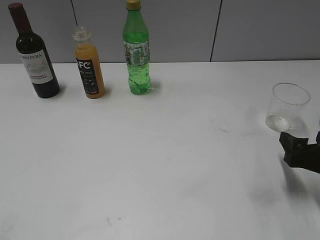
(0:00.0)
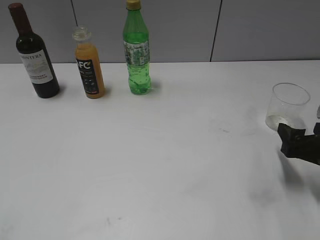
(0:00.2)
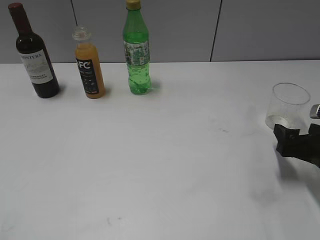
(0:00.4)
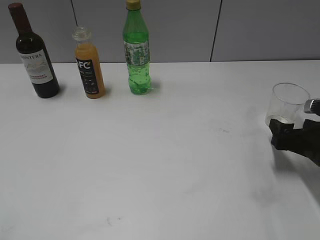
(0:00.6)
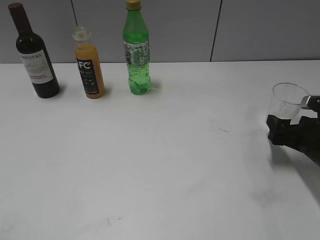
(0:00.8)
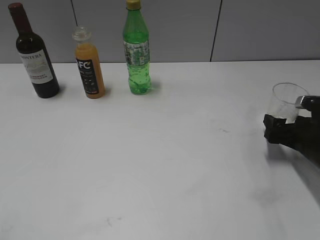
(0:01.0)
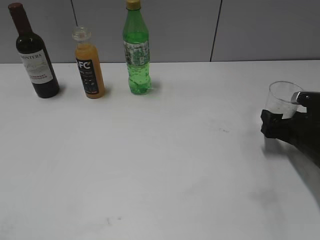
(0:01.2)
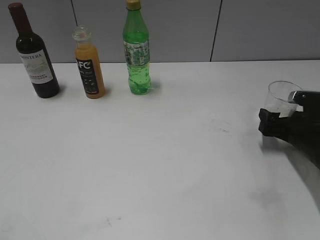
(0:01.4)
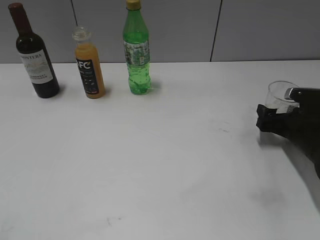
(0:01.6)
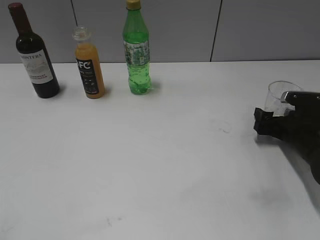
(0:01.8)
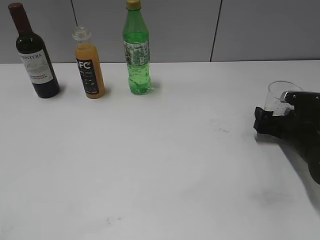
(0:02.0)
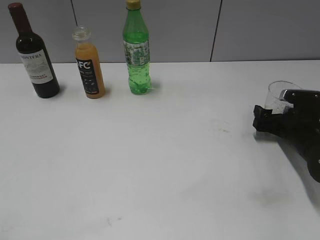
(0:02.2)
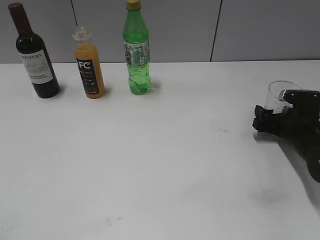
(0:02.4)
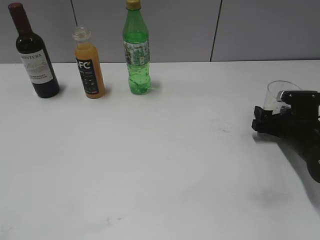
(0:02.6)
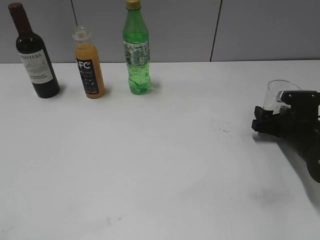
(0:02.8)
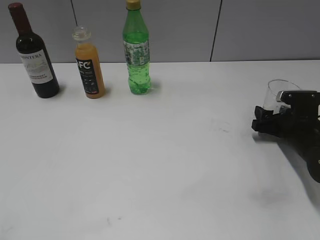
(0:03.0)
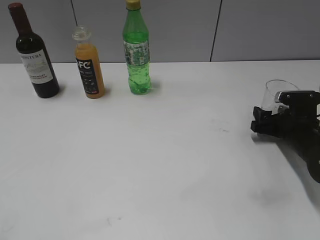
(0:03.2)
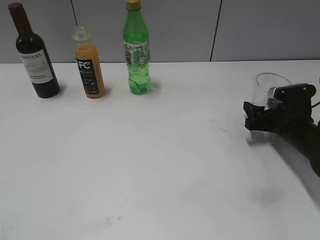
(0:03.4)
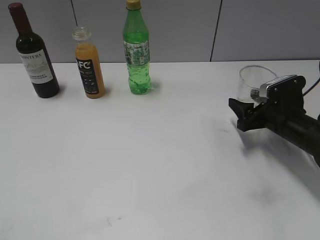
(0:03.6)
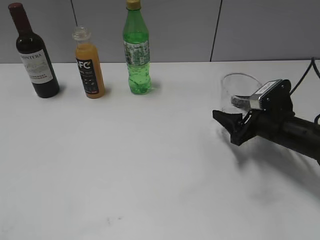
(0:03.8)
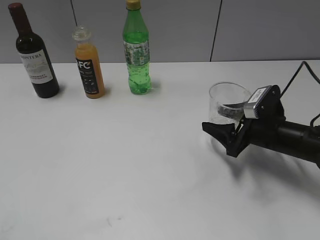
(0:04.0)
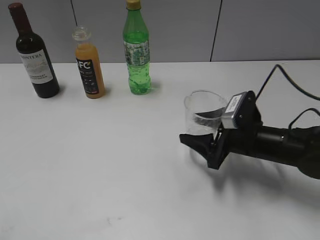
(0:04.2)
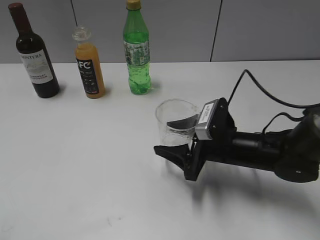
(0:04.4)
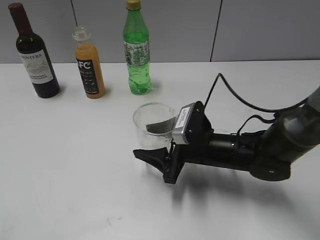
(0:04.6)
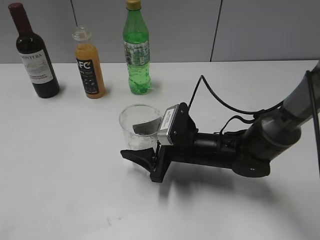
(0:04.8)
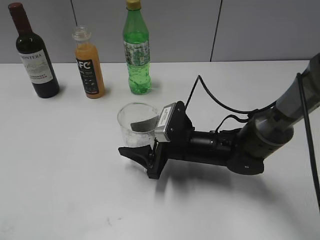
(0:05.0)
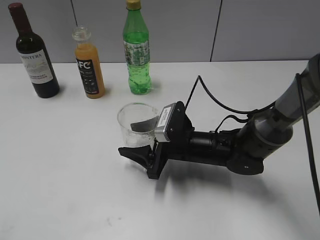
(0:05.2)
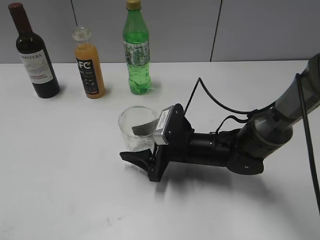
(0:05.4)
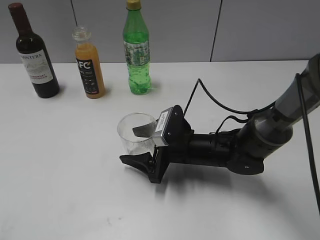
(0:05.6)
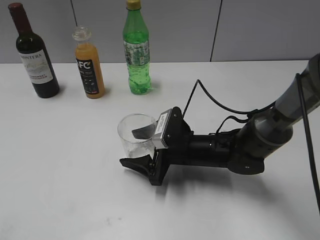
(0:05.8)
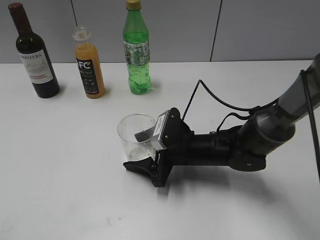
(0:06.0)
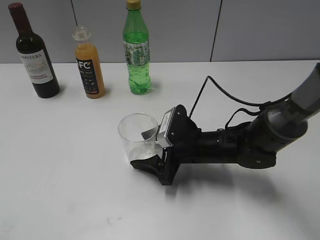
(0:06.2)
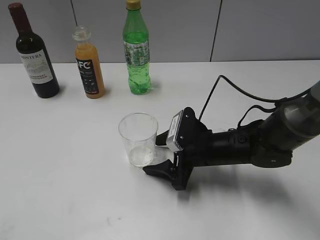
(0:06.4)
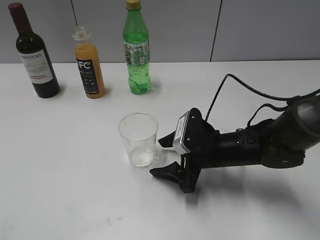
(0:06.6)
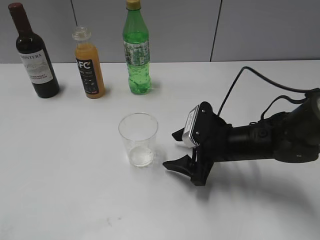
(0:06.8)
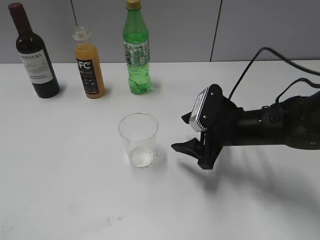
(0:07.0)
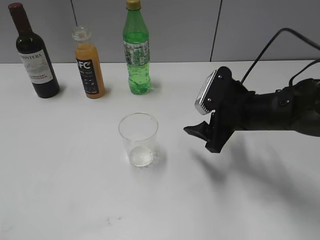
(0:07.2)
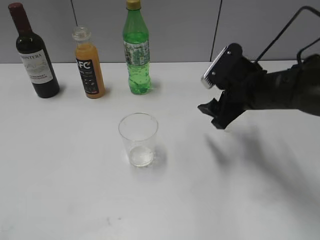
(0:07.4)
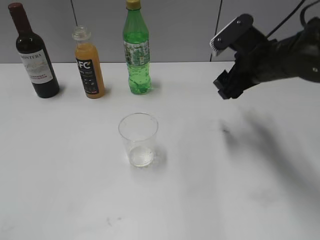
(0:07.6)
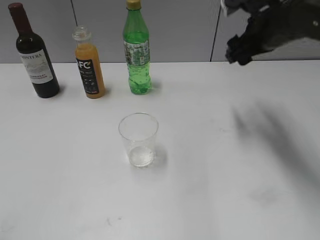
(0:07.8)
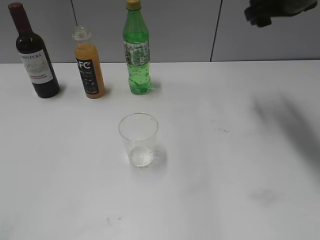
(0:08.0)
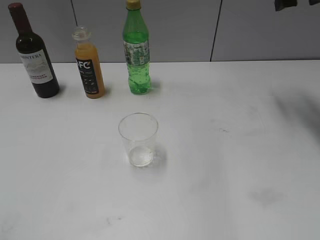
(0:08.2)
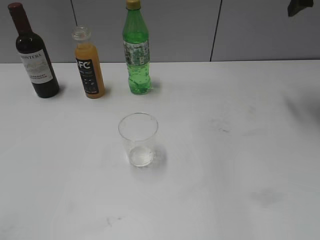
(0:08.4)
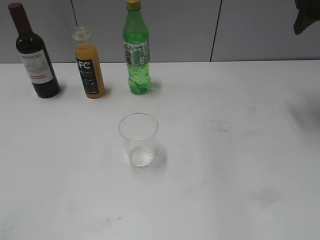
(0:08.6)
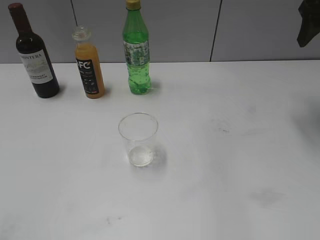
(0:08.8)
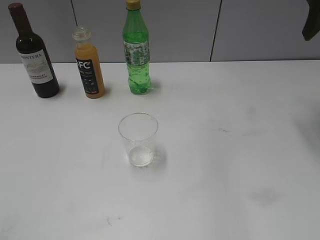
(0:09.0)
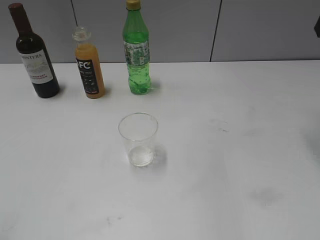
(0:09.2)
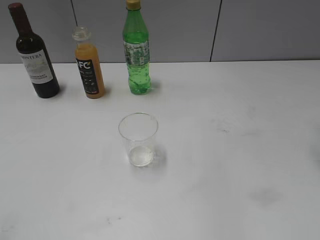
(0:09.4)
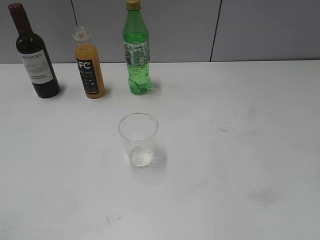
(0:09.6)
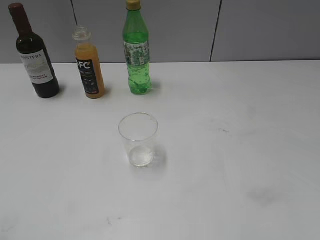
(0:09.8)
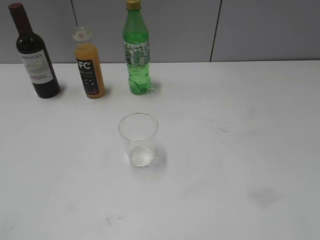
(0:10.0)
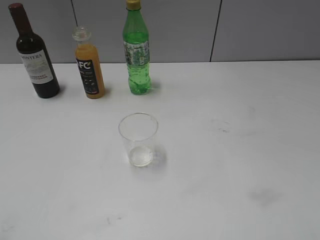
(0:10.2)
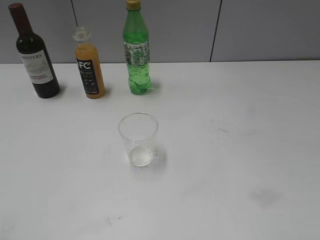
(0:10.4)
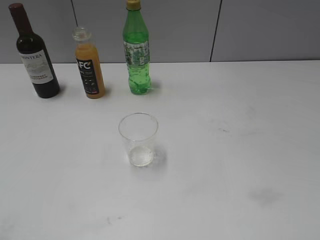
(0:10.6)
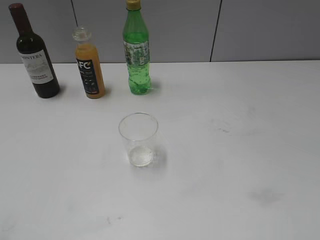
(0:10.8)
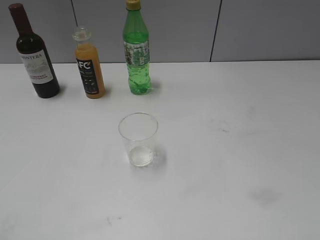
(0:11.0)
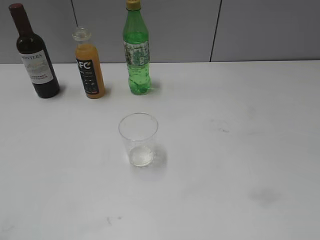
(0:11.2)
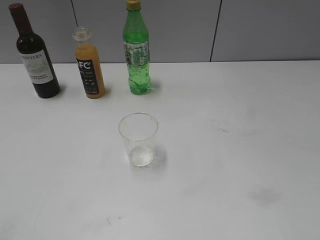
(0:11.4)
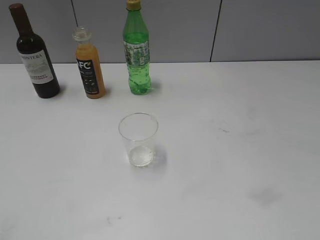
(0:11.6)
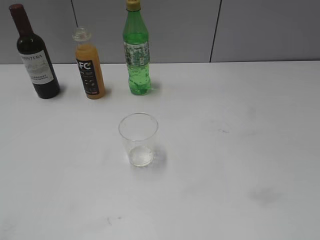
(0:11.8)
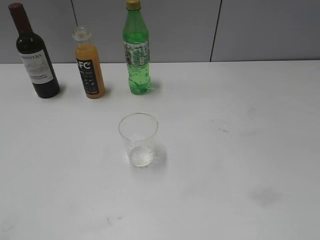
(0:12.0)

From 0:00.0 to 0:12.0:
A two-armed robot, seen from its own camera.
Step, from 0:00.0 to 0:03.0: Grasp the transparent cup with right gripper.
Step, from 0:03.4 to 0:06.6: Place the transparent cup on the table with right gripper.
From 0:00.0 to 0:01.6: The right gripper goes roughly 10 cm forward.
From 0:01.6 to 0:03.0: The right gripper closes its fingers.
From 0:03.0 to 0:04.4: The right gripper goes roughly 15 cm to the left.
From 0:04.4 to 0:06.0: The right gripper is displaced to the left by approximately 5 cm, and opens up.
From 0:06.0 to 0:07.6: The right gripper heads upward and to the right, covering roughly 20 cm.
From 0:07.6 to 0:09.0: The right gripper goes roughly 20 cm upward and to the right.
From 0:09.0 to 0:10.4: The right gripper moves backward, roughly 30 cm.

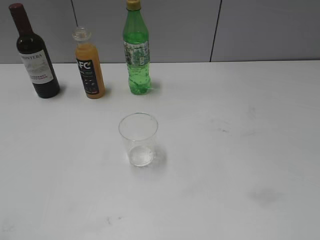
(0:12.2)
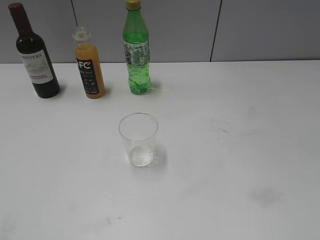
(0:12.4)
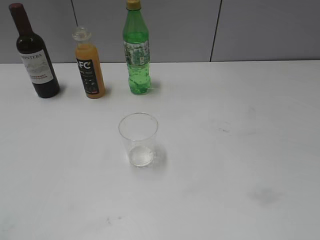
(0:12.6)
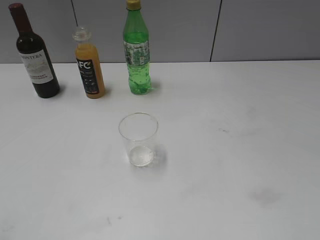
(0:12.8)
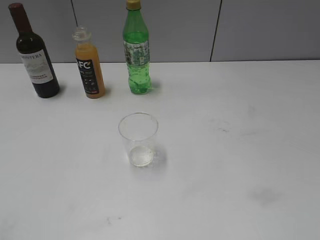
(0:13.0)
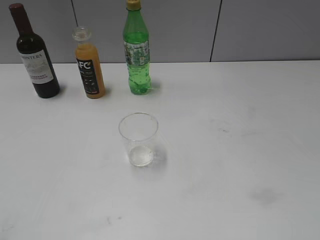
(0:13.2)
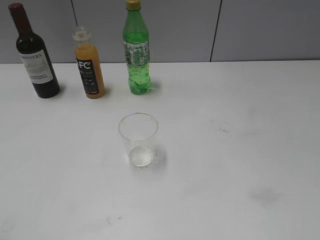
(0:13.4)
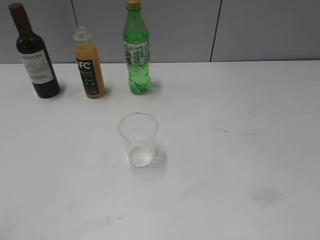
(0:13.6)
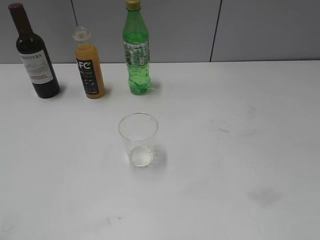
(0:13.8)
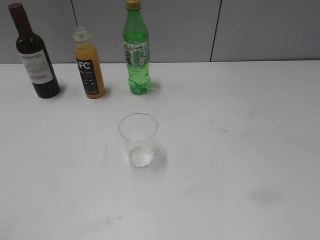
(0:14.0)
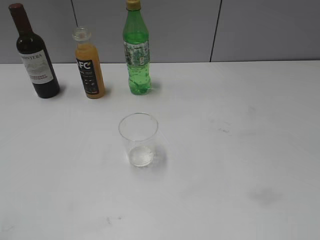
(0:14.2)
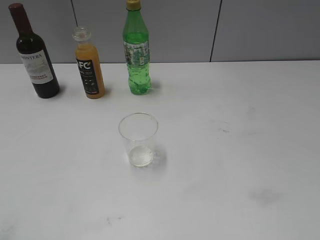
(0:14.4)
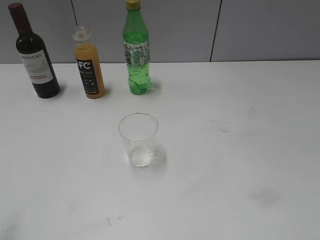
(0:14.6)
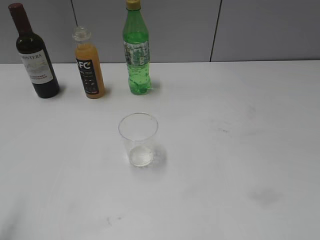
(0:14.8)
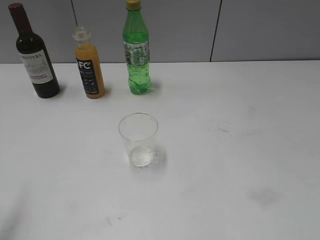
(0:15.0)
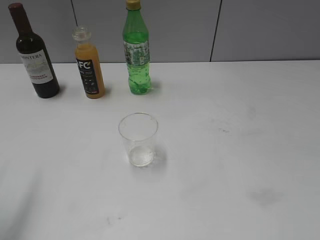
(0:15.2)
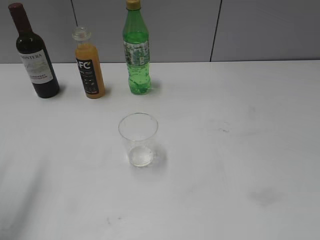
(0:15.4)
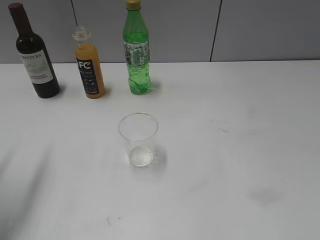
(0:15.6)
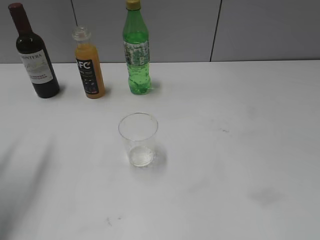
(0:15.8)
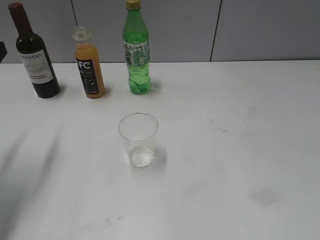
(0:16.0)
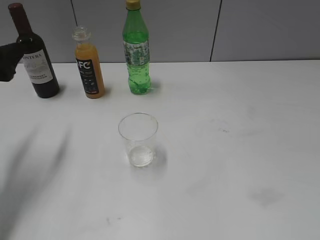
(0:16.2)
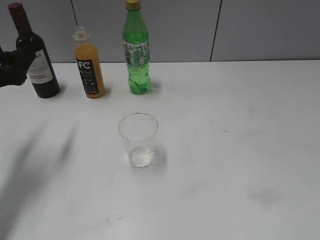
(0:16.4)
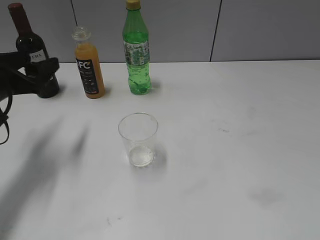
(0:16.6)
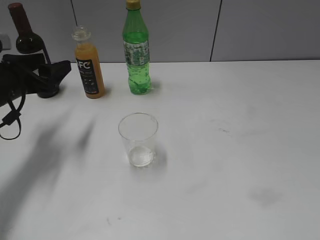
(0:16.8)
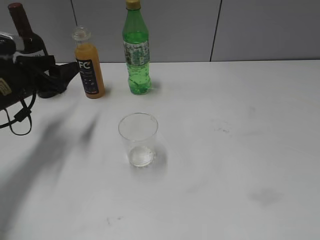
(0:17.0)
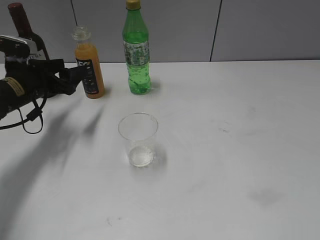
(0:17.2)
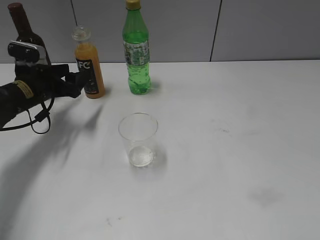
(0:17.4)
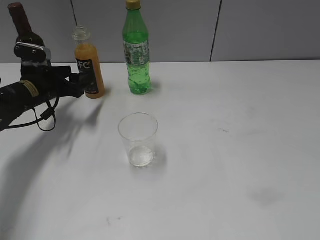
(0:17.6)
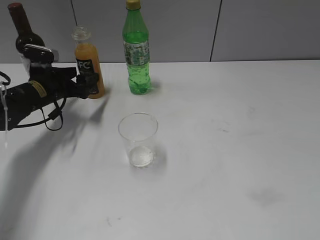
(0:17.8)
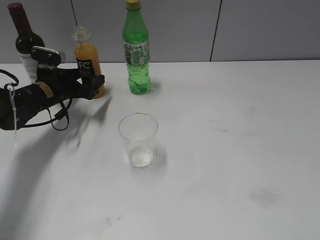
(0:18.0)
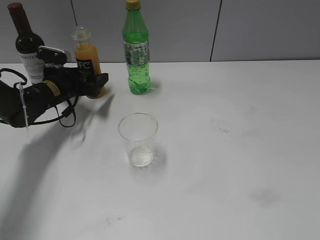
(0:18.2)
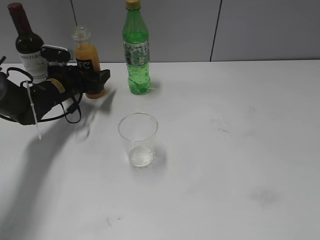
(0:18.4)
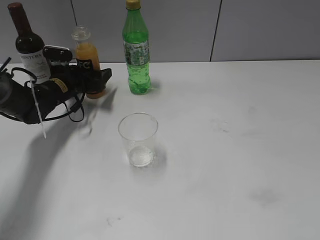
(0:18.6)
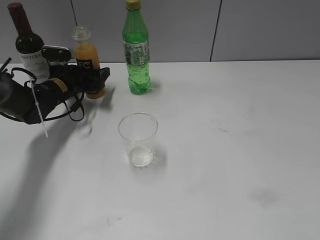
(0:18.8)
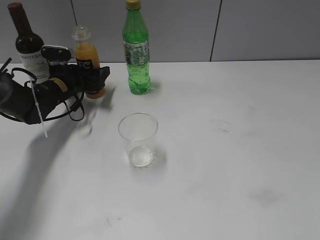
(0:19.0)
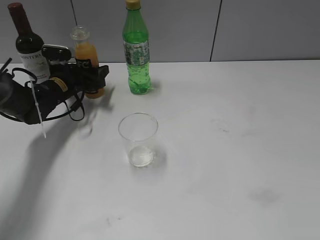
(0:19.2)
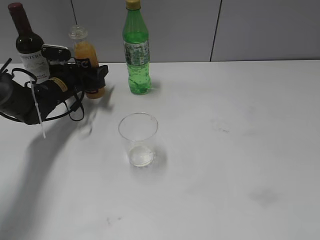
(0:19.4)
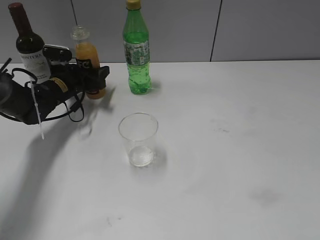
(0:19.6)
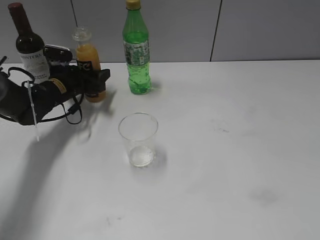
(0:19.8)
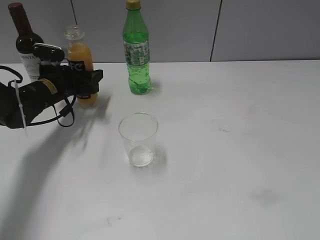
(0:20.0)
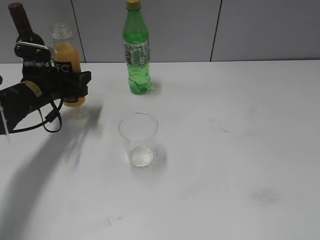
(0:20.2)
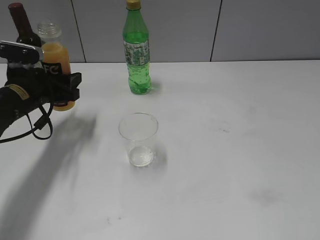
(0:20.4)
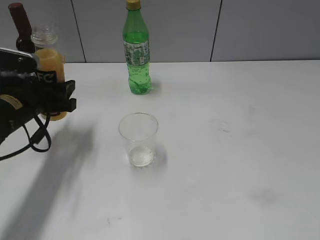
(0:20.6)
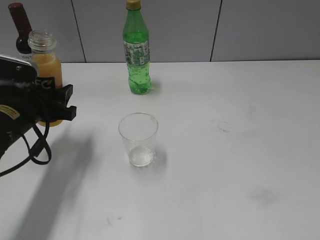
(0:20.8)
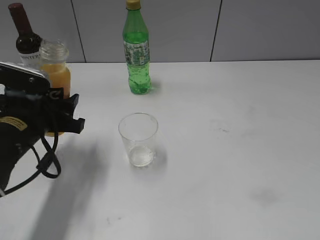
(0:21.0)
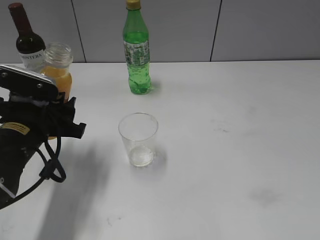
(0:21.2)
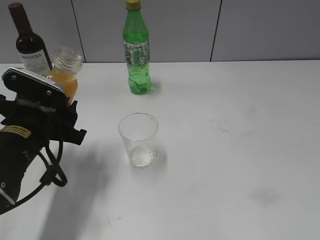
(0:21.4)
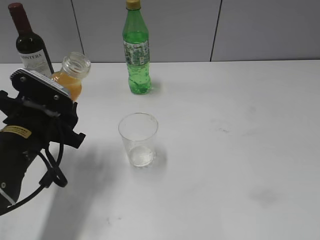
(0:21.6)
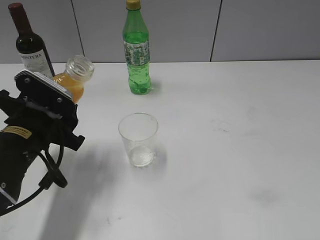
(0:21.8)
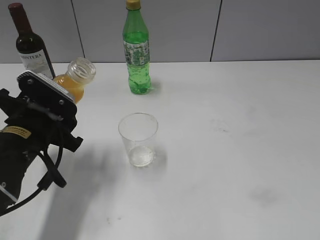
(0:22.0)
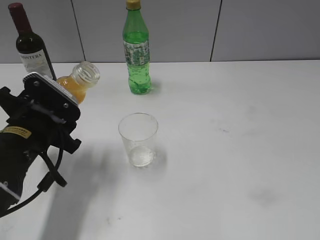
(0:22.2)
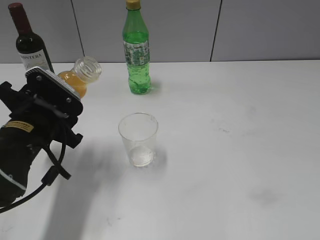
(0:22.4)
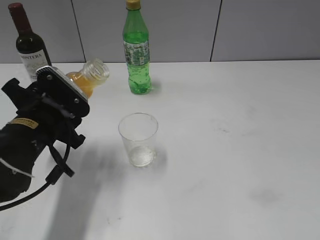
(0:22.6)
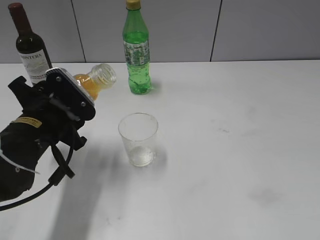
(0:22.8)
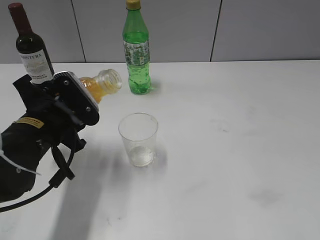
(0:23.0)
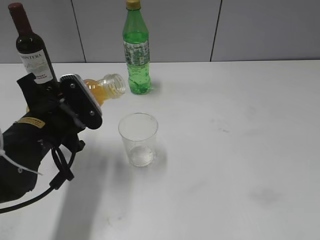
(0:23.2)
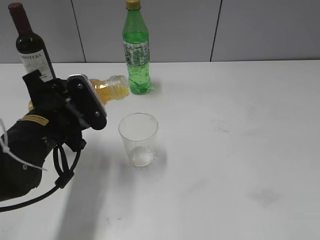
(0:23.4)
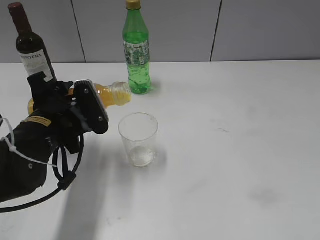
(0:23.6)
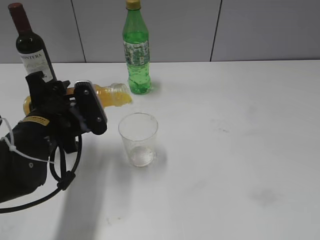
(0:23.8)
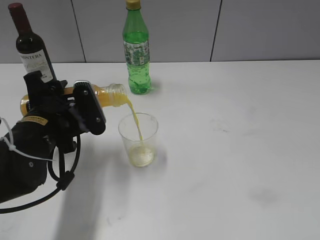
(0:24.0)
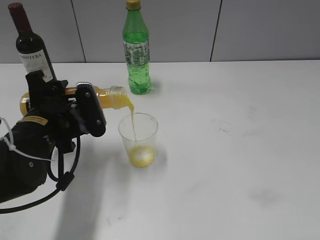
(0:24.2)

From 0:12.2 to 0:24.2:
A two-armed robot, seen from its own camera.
Step, from 0:12.2 to 0:19.6: Grasp the bottle with orange juice with left gripper.
From 0:13.8 to 0:15.2: The left gripper goes some 15 cm forward.
From 0:15.2 to 0:16.6: The left gripper heads forward and downward, covering some 20 cm.
From 0:16.6 to 0:18.2: The left gripper shifts roughly 15 cm forward and downward.
From 0:18.2 to 0:19.8: The left gripper closes.
From 0:19.8 to 0:21.2: The left gripper heads backward, covering approximately 20 cm.
